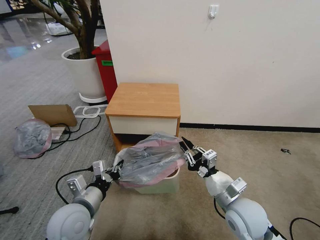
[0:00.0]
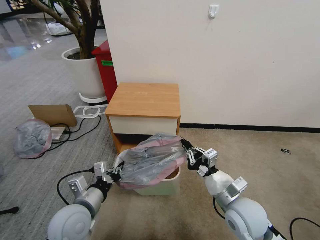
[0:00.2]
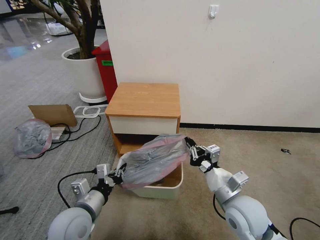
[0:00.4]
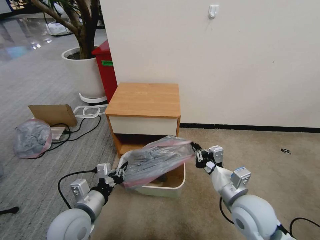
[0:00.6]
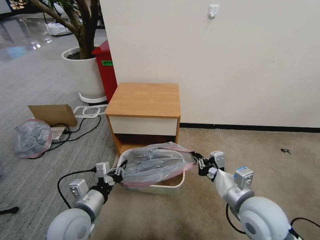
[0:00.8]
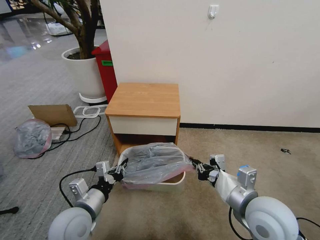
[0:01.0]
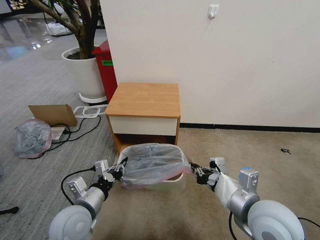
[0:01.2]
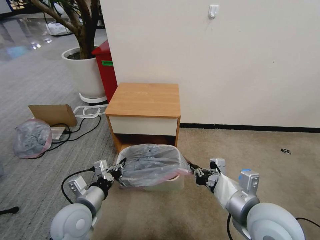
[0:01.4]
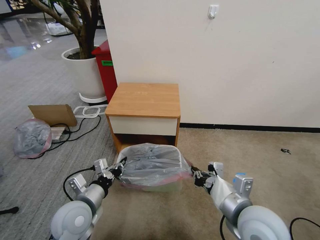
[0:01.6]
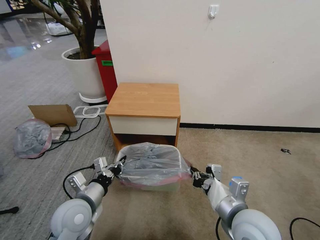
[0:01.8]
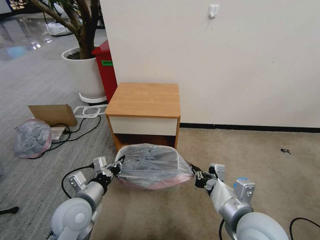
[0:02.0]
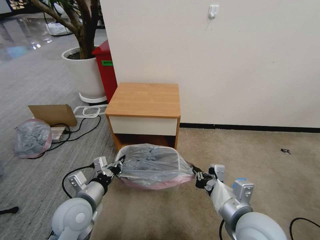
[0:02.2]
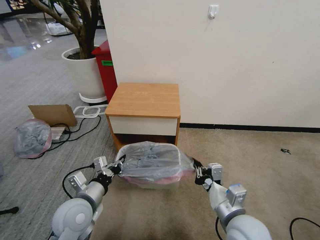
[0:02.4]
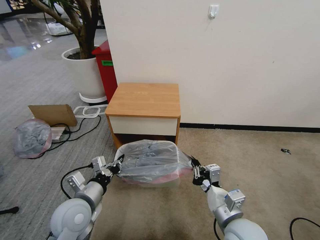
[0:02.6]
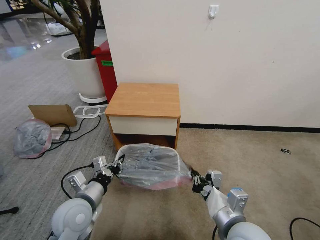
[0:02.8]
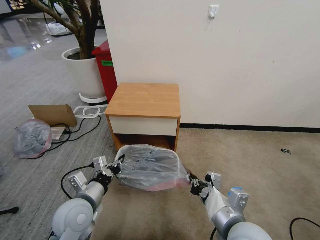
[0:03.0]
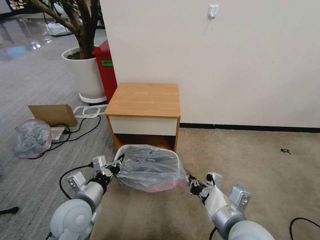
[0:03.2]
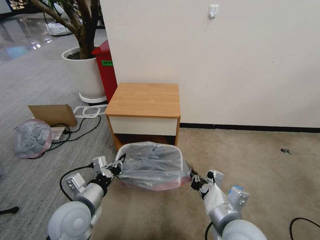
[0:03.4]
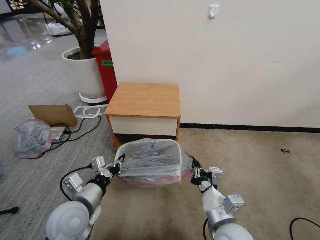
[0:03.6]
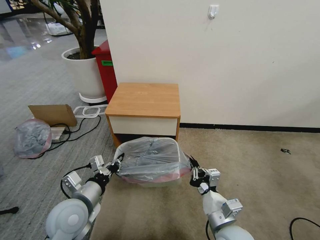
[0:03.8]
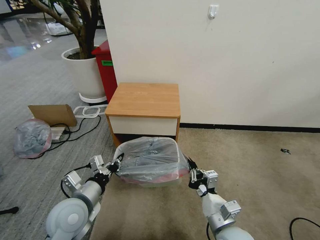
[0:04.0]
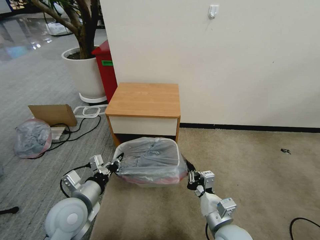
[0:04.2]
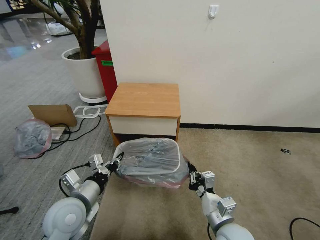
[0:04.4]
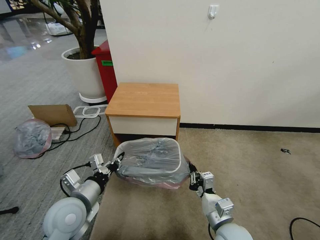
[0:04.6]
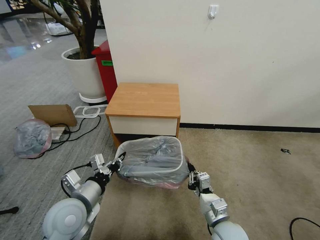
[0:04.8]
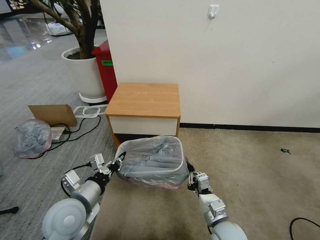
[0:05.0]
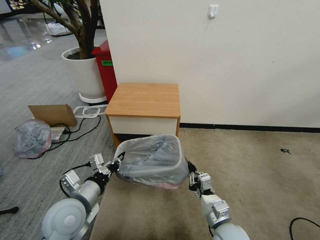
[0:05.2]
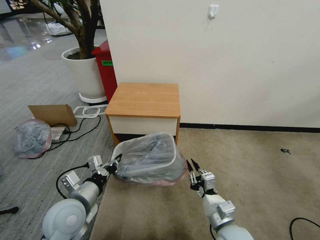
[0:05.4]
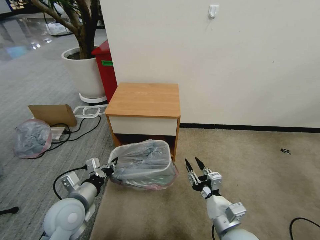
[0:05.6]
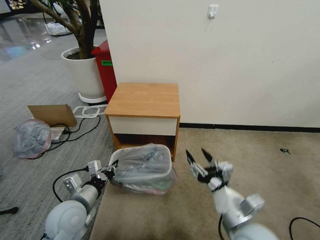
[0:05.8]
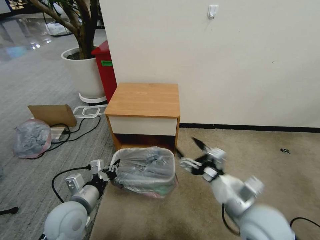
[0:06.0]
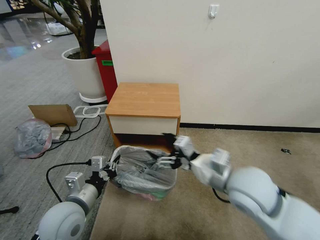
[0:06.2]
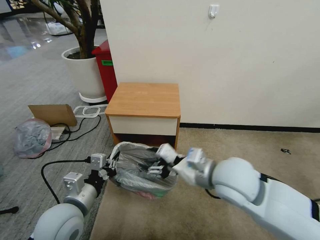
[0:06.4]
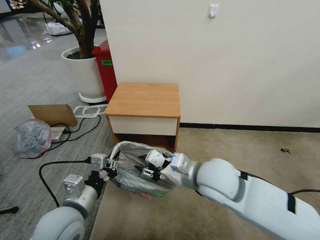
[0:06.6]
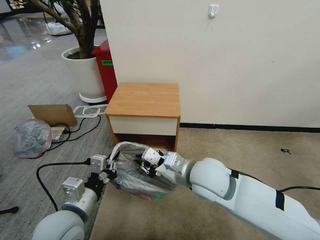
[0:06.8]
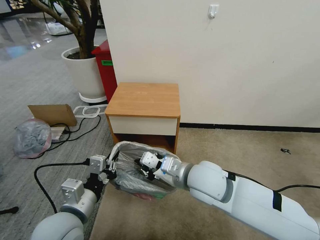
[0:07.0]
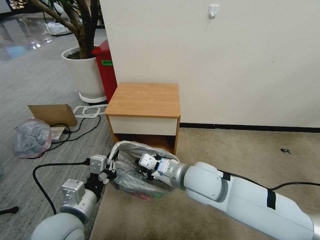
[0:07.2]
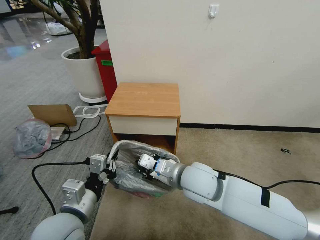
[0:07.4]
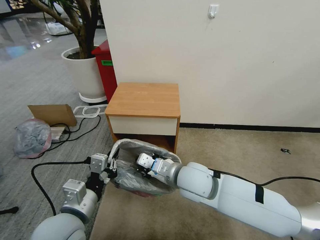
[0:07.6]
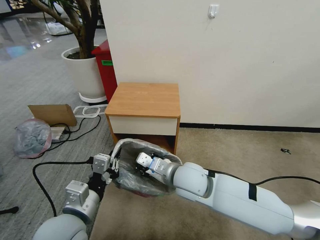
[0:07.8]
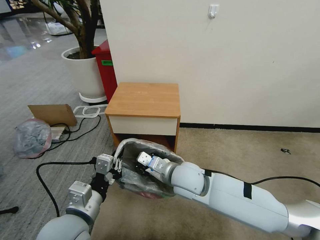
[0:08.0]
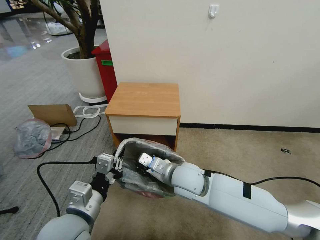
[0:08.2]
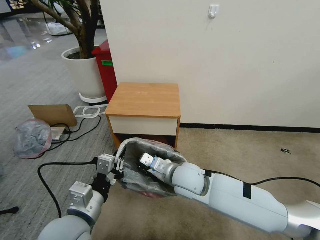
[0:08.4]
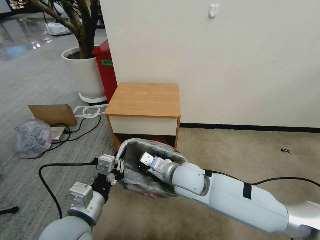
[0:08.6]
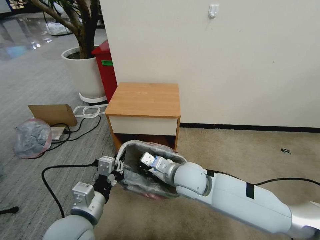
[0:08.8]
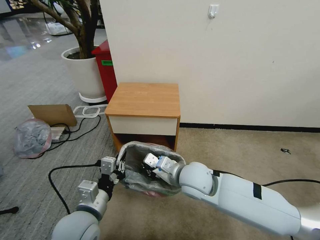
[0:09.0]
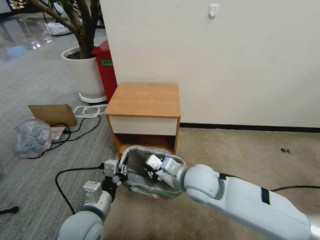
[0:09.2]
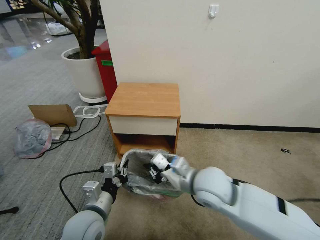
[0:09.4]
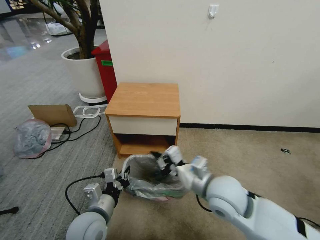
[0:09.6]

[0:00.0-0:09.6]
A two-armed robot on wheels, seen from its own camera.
Task of the whole recording: Pick up the garbage bag from the table and place it over the trash can.
0.0 to 1.6 s: The right gripper goes roughly 10 cm upward.
1.6 to 3.2 s: The right gripper reaches roughly 10 cm downward, then returns.
3.2 to 4.8 s: The right gripper travels downward by some 15 cm.
4.8 to 6.4 s: The right gripper travels upward by about 25 cm, and opens up.
6.4 to 8.0 s: The right gripper shifts roughly 15 cm downward and to the left, and closes its fingers.
8.0 to 9.6 s: The left gripper travels downward by some 10 cm, while the right gripper shifts approximately 10 cm to the right and backward.

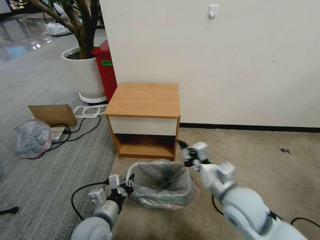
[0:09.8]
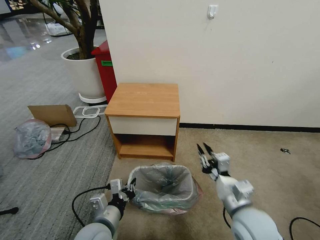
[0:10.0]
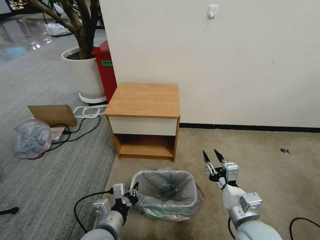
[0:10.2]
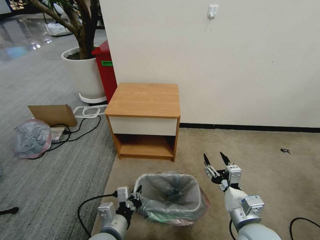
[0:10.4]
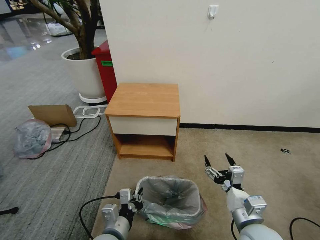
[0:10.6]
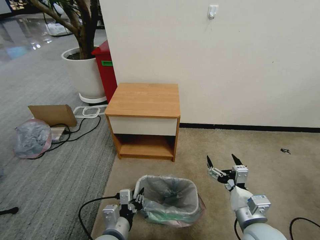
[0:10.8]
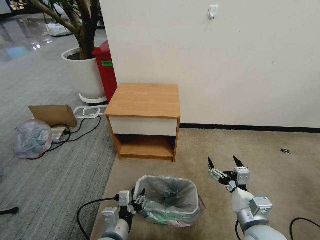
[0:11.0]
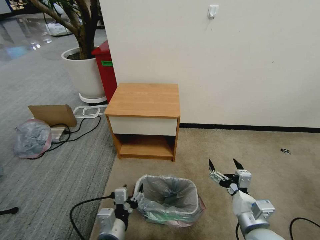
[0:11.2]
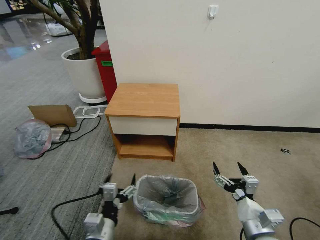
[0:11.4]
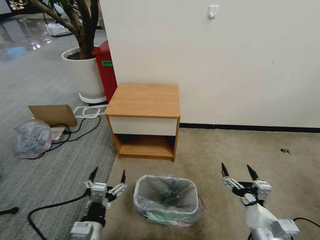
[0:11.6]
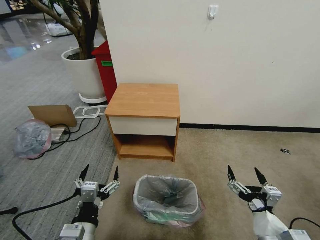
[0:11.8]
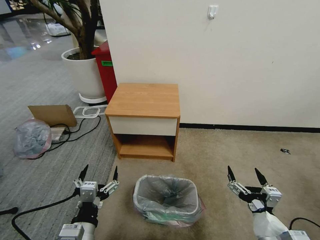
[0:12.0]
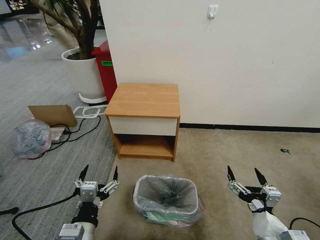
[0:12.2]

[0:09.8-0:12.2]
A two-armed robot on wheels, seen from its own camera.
Task of the whole recording: Pick up the garbage bag from the table and place it over the trash can.
9.8 to 11.0 s: The right gripper heads backward, downward and to the right, covering approximately 10 cm, and opens up, while the left gripper ends up some 5 cm from where it was, and opens its fingers.
11.0 to 12.2 s: The right gripper moves backward, some 5 cm. Meanwhile the left gripper moves upward and to the left, approximately 10 cm, and opens.

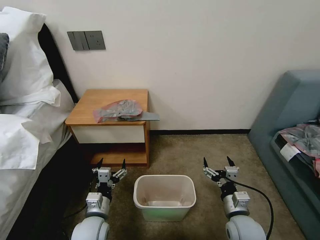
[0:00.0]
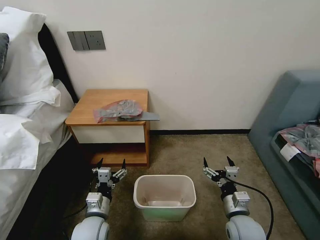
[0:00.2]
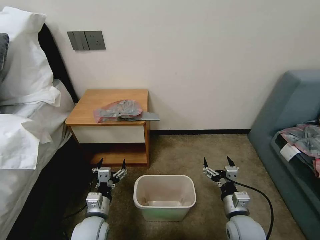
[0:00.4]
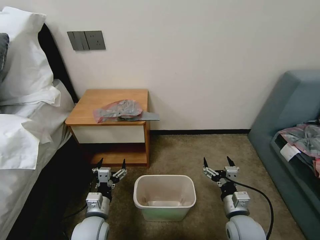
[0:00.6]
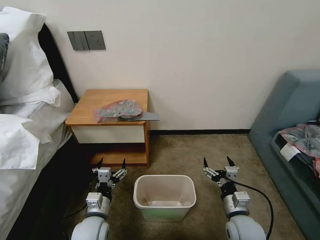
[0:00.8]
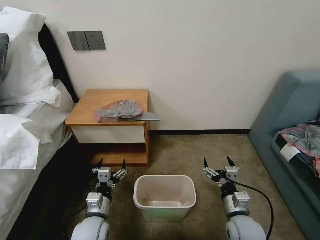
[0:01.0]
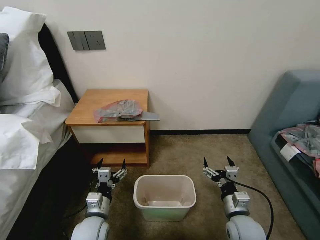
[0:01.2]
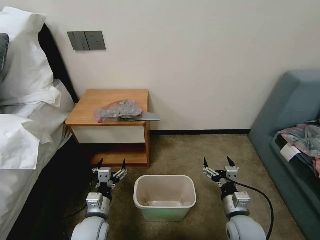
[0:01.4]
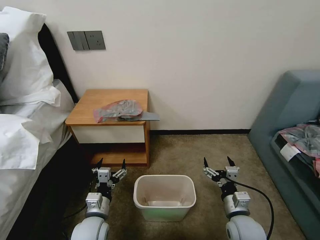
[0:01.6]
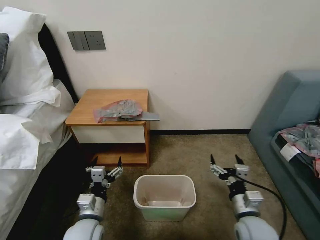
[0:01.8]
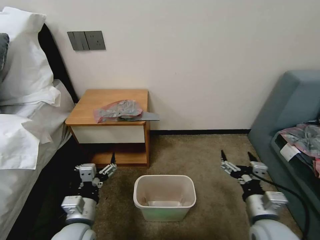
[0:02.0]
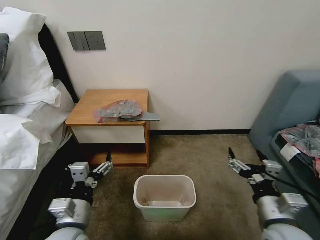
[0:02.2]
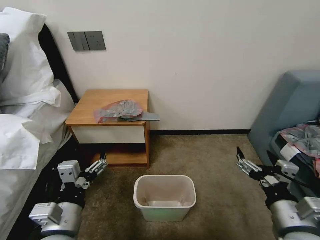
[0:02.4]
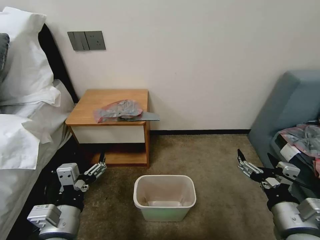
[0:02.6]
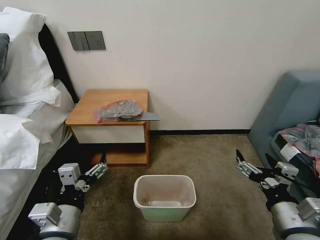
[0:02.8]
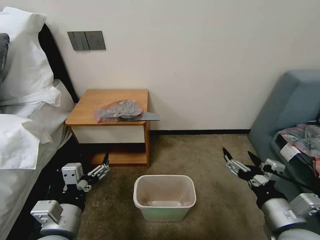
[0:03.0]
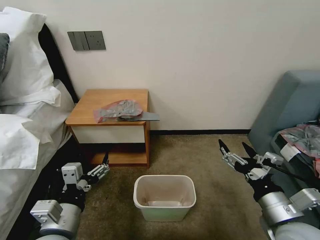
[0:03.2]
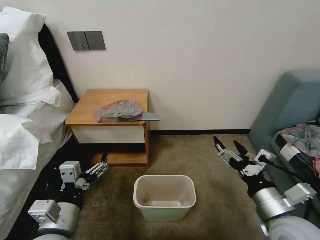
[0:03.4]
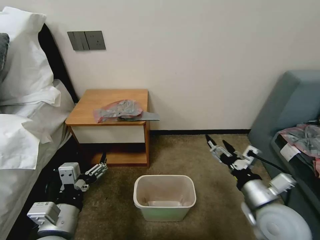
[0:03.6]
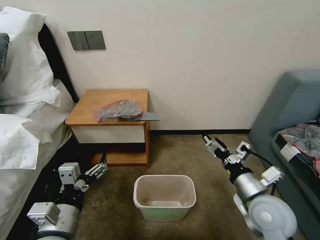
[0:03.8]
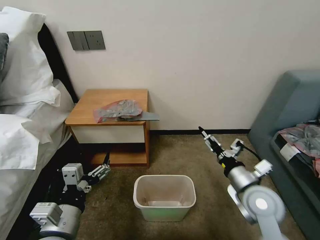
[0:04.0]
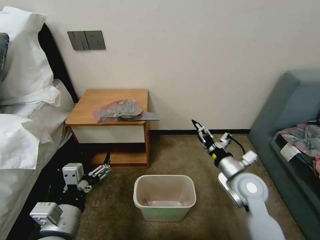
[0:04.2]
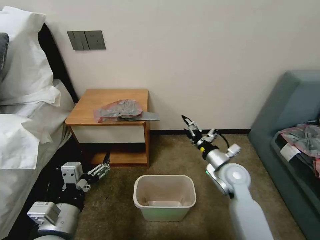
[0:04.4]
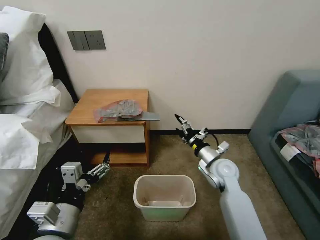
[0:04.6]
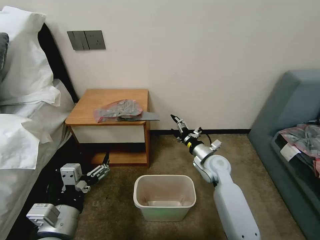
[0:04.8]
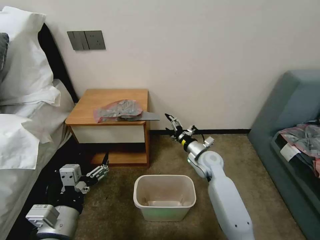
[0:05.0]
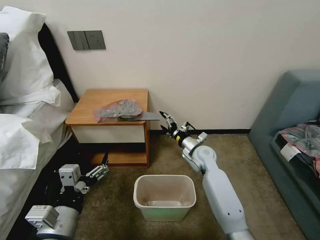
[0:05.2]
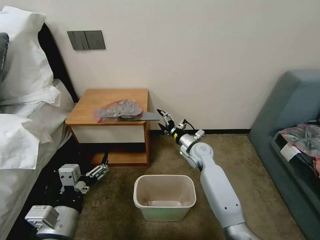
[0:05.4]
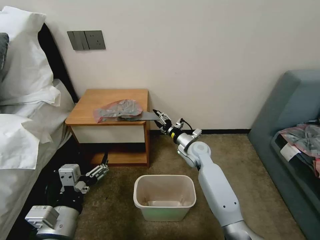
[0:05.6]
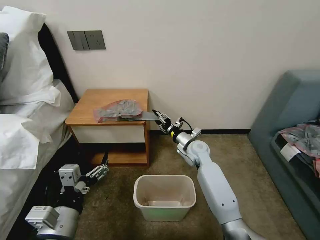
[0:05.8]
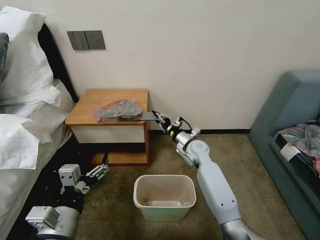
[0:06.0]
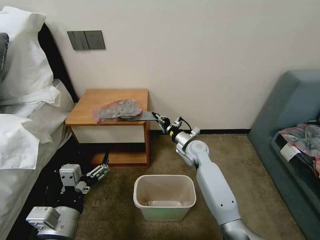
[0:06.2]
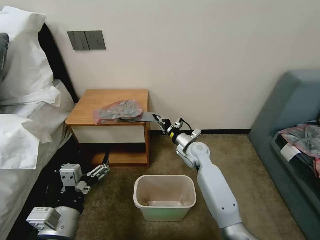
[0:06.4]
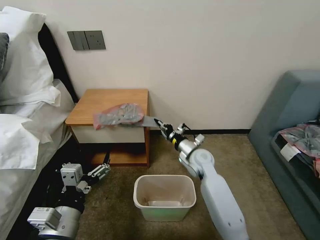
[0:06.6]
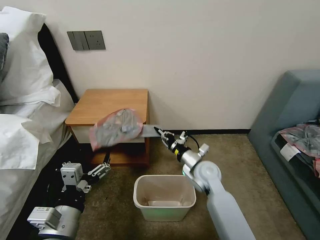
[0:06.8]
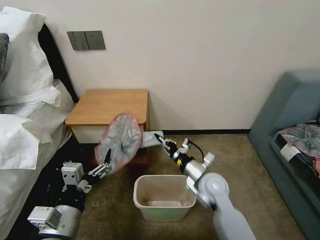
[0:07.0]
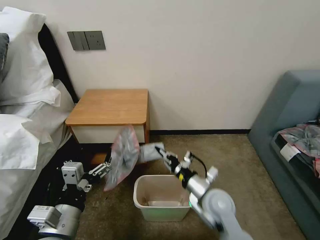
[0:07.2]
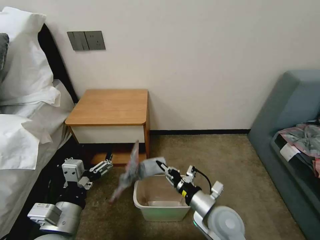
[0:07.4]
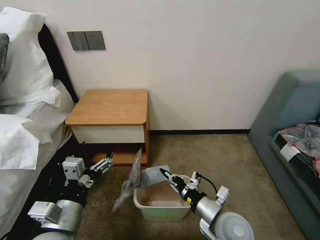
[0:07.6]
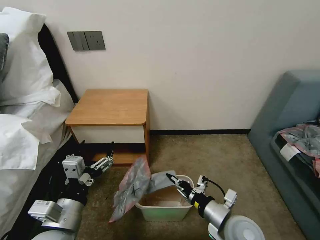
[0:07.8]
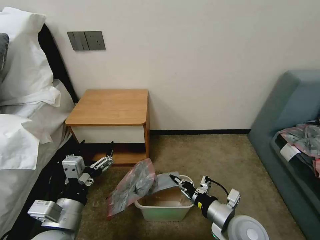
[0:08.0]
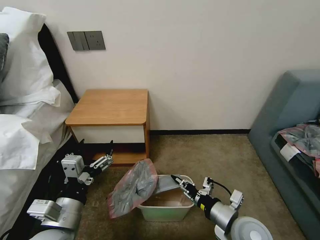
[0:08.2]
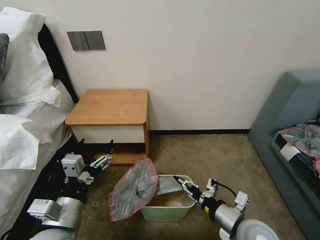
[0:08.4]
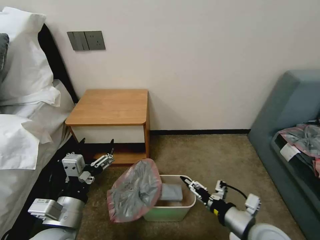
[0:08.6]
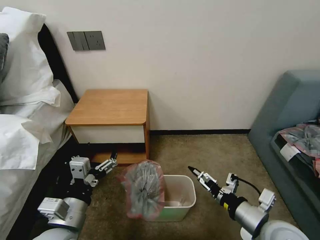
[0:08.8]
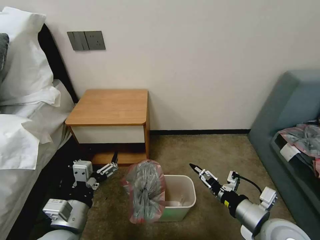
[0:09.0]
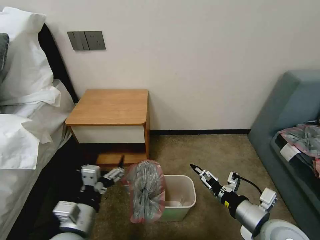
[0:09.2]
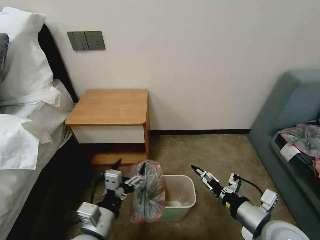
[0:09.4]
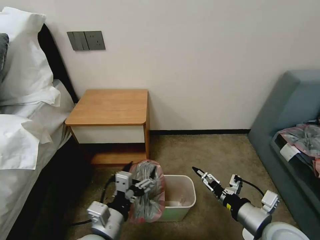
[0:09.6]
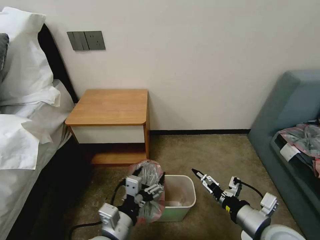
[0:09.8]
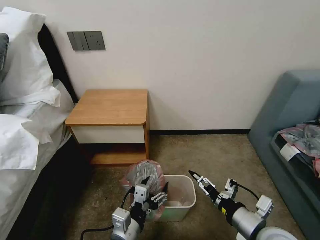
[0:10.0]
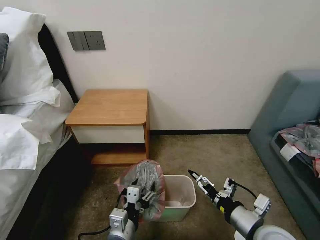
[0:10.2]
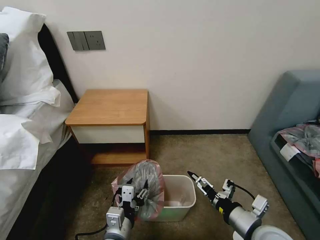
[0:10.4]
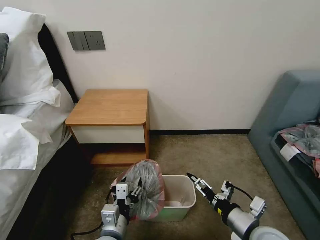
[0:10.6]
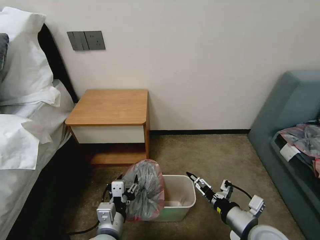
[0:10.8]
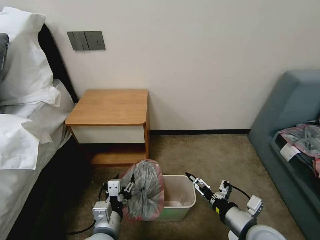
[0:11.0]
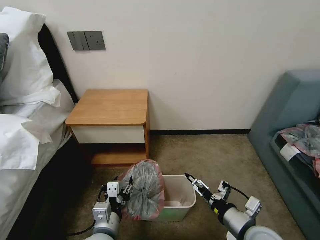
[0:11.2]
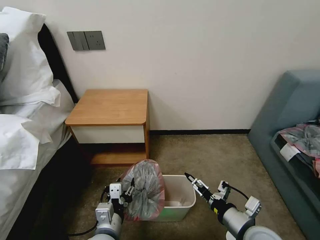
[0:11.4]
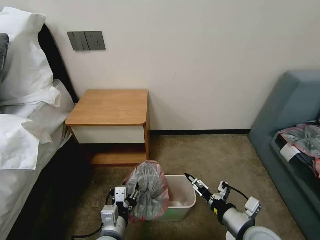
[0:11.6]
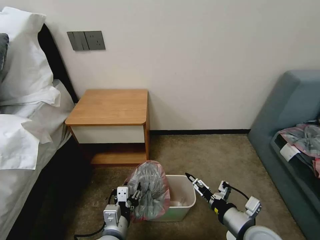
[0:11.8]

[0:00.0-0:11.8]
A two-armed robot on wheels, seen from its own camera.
Task of the whole recording: Pick up the garbage bag from the table and place it over the trash can.
1.4 to 3.0 s: Both grippers travel together upward and backward, about 15 cm.
3.0 to 4.4 s: The right gripper is displaced forward by approximately 20 cm.
4.4 to 6.0 s: The right gripper goes about 15 cm forward and to the left, and closes.
6.0 to 7.4 s: The right gripper travels backward by approximately 25 cm.
7.4 to 8.8 s: The right gripper heads to the right and upward, covering some 10 cm, and opens its fingers.
8.8 to 10.4 s: The left gripper goes approximately 15 cm to the right and downward, and closes its fingers.
10.4 to 11.8 s: The grippers stay close to where they were, moving slightly.
